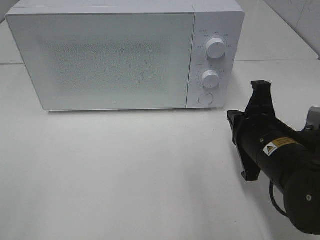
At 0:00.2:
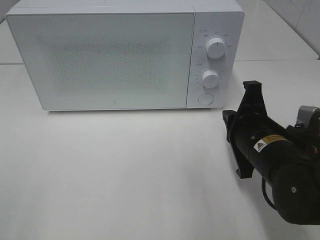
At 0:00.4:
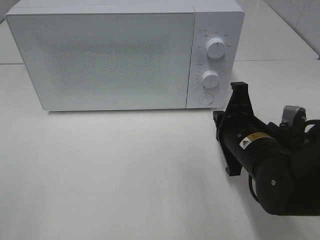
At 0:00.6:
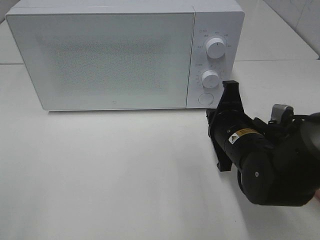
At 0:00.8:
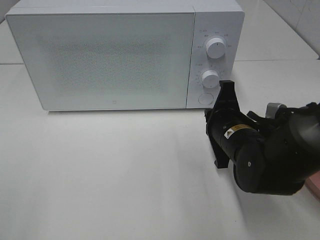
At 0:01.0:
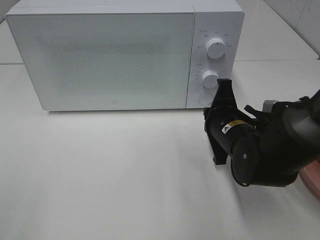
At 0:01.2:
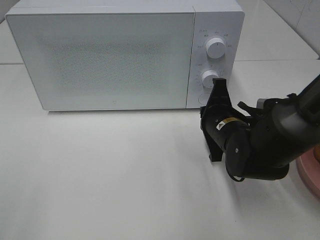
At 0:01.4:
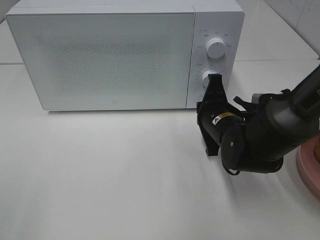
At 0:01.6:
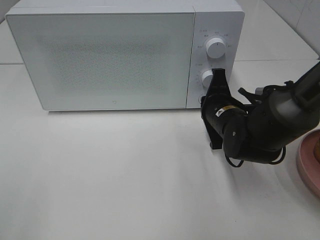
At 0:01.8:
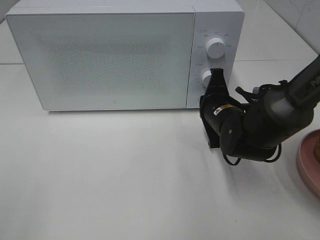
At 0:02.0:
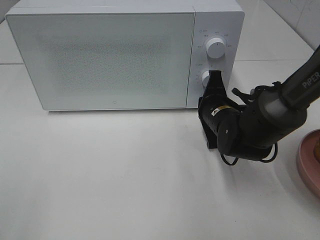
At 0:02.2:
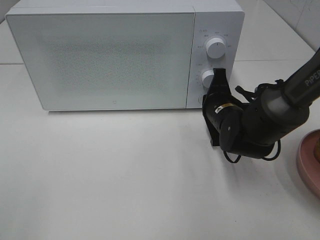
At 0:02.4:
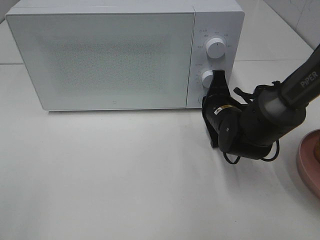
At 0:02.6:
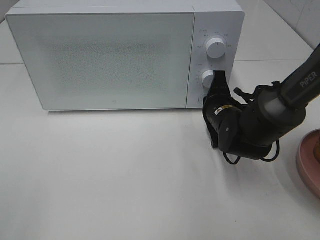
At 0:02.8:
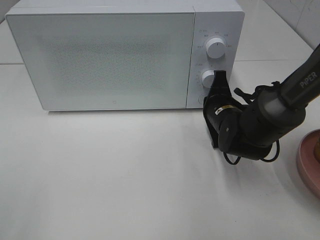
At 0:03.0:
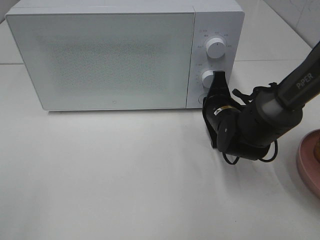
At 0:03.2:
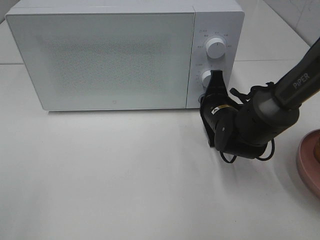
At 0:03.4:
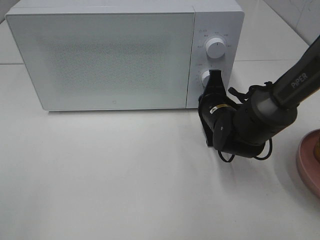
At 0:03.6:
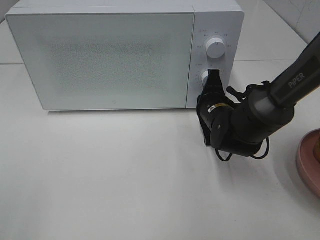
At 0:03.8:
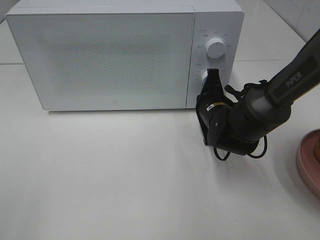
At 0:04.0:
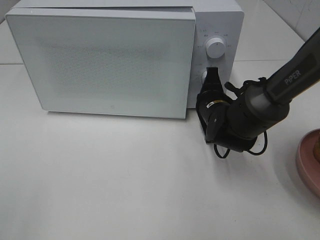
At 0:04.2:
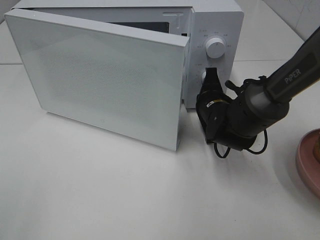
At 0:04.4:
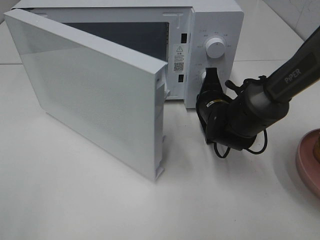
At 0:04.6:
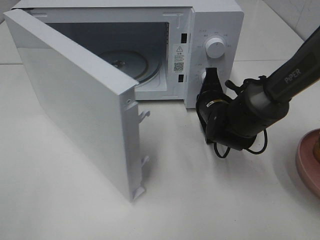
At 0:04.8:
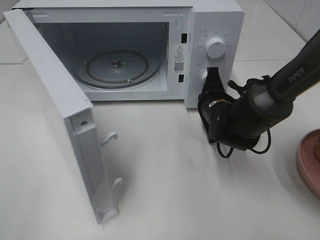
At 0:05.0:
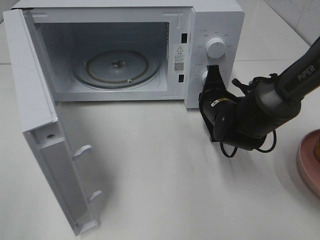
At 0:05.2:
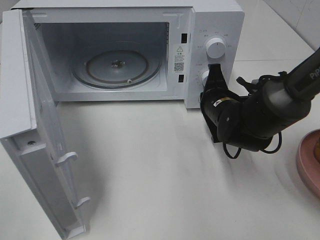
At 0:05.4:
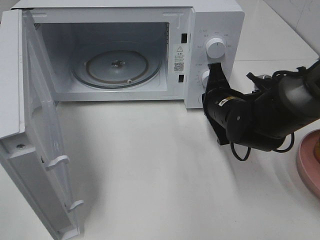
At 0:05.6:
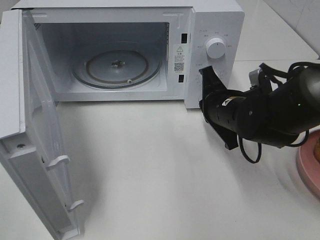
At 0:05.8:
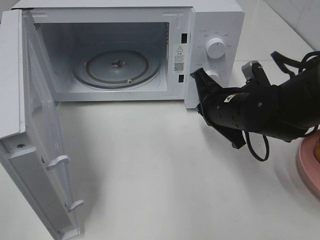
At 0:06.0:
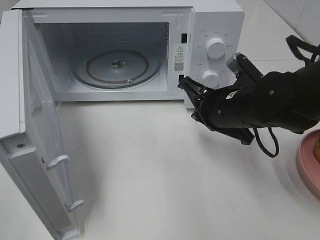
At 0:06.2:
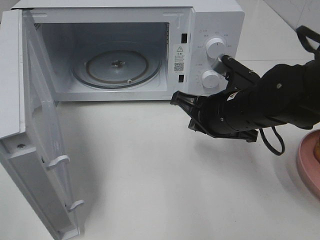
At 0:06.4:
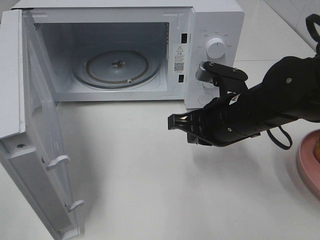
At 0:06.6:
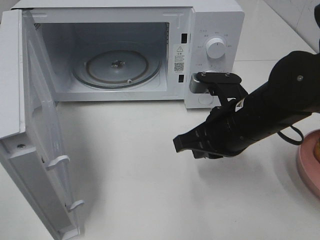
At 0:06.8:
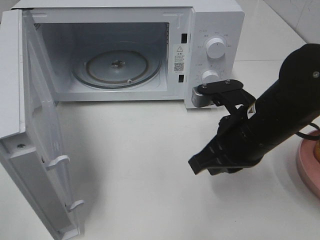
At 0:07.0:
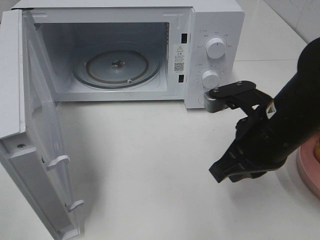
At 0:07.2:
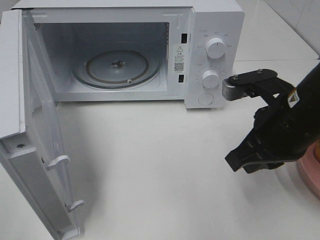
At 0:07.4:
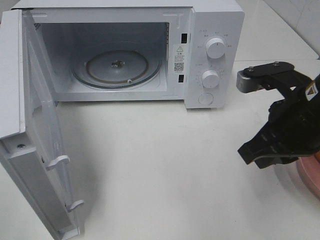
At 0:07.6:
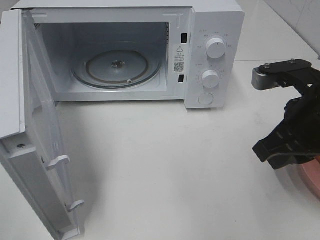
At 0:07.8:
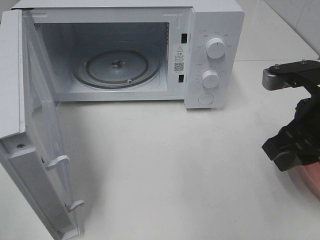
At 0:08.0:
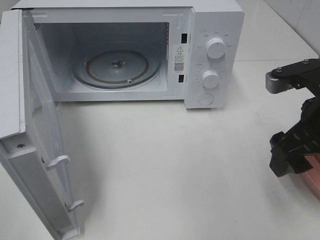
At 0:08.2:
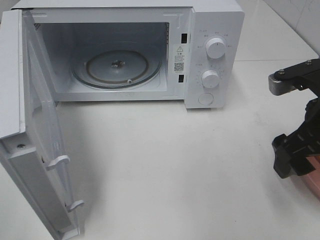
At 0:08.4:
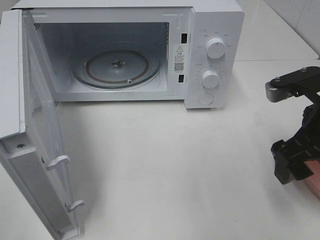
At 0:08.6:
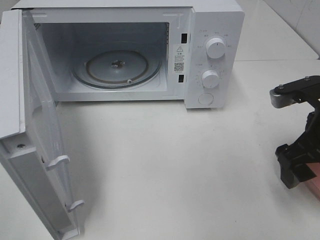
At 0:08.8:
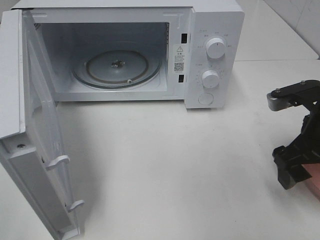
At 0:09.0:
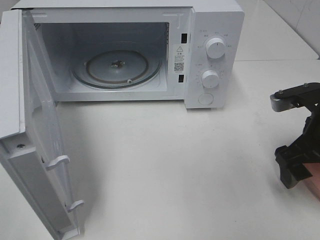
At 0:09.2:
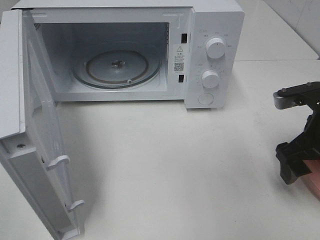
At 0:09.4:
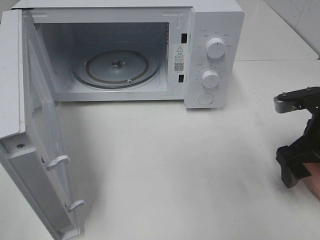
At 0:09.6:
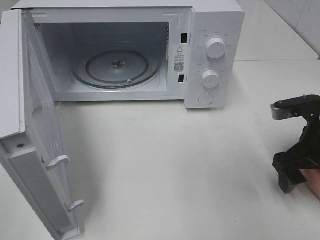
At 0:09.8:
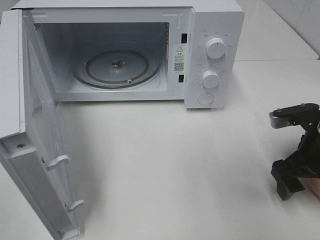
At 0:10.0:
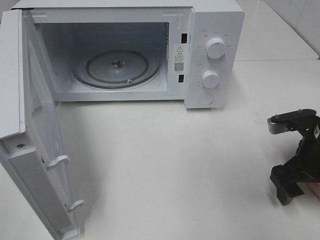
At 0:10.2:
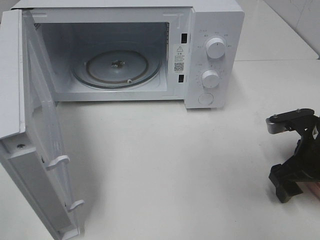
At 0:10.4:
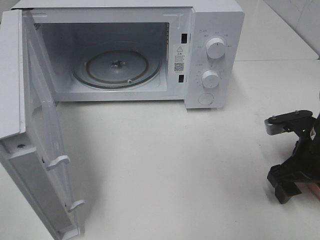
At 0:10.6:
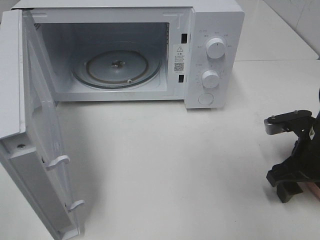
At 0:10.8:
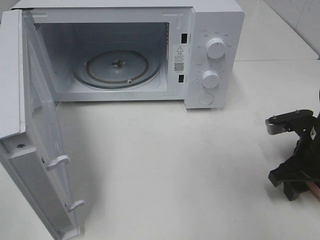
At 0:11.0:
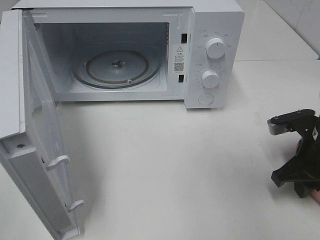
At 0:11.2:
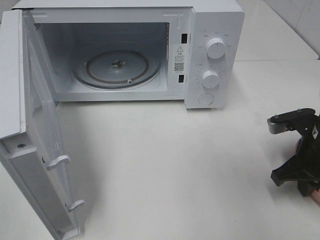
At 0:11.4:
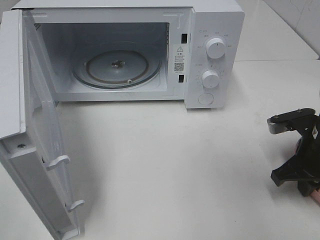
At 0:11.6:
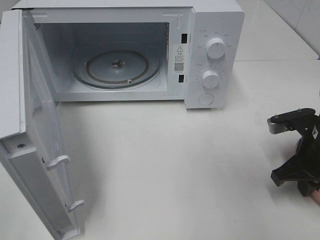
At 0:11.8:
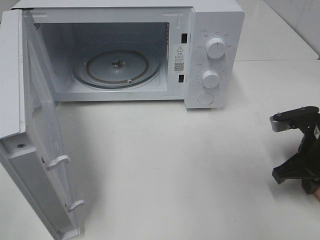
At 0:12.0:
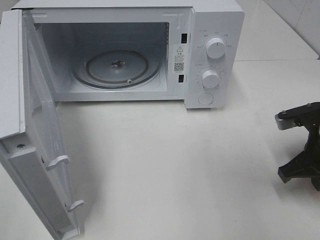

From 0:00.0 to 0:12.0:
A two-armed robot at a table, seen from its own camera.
Task of the whole recording: Heat the burger.
Step, from 0:00.0 to 0:05.2: Right hand: press the switch.
Step, from 0:05.4 to 0:11.2: Right hand: grab the plate with the hamburger.
From 0:00.0 to 0:01.6: The right gripper shifts about 10 cm forward.
From 0:01.6 to 0:03.0: The grippers make only small movements.
From 0:04.4 to 0:06.0: The right gripper shifts about 10 cm backward and upward.
From 0:06.0 to 0:07.6: The right gripper goes some 15 cm backward, upward and to the right.
From 0:07.6 to 0:09.0: The right gripper shifts by about 5 cm, and opens its fingers.
From 0:09.0 to 0:10.4: The right gripper travels downward by about 5 cm.
From 0:10.4 to 0:12.0: The right gripper closes up.

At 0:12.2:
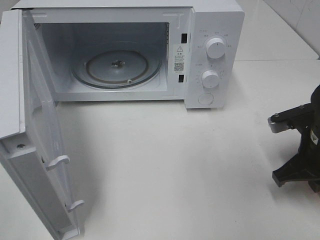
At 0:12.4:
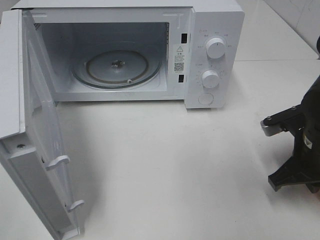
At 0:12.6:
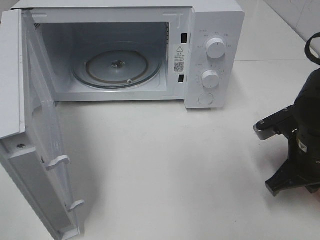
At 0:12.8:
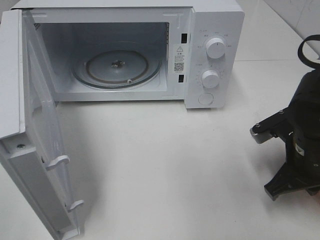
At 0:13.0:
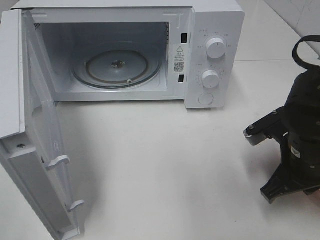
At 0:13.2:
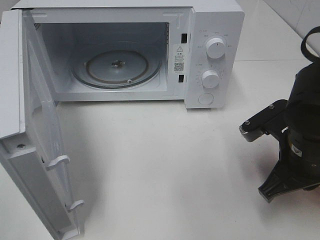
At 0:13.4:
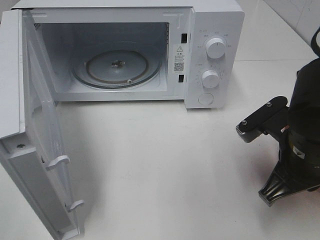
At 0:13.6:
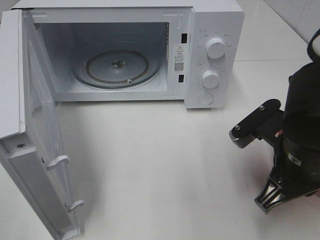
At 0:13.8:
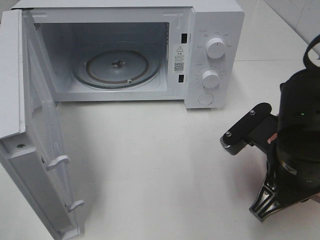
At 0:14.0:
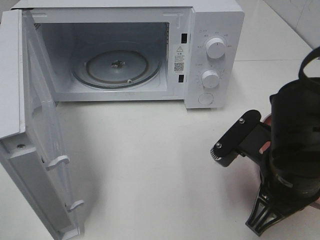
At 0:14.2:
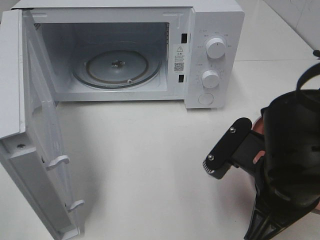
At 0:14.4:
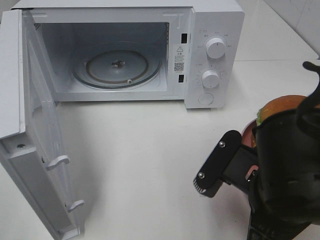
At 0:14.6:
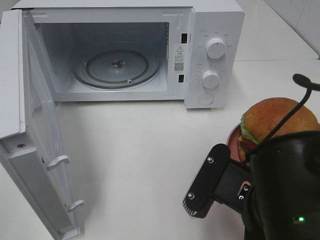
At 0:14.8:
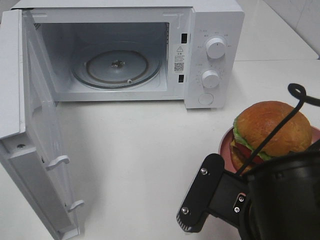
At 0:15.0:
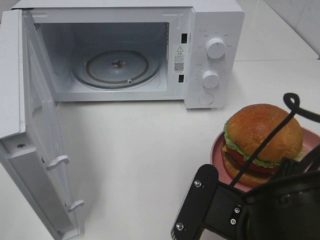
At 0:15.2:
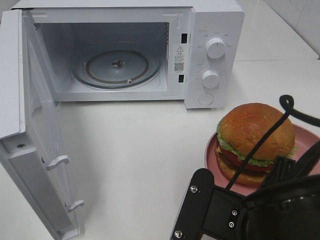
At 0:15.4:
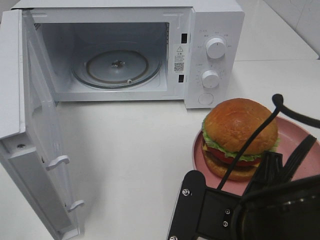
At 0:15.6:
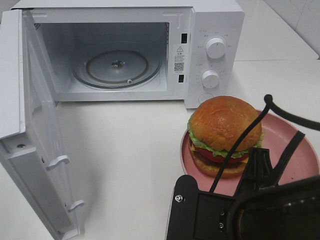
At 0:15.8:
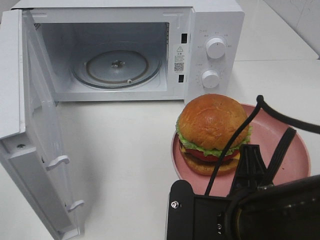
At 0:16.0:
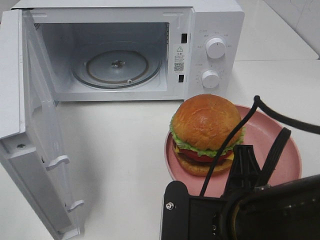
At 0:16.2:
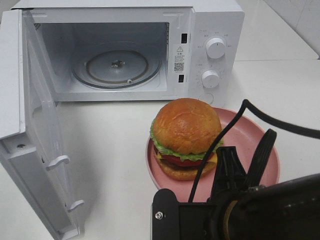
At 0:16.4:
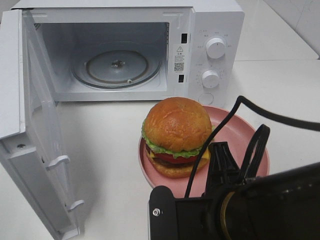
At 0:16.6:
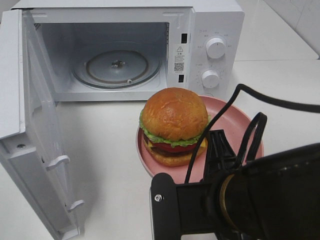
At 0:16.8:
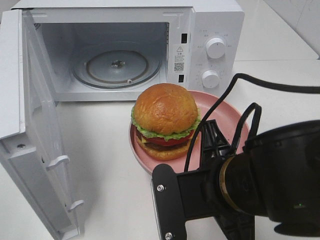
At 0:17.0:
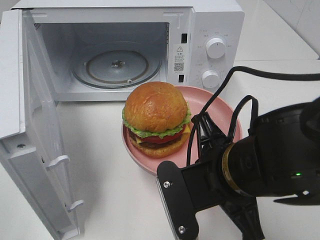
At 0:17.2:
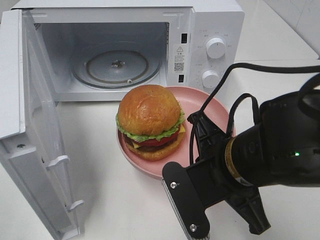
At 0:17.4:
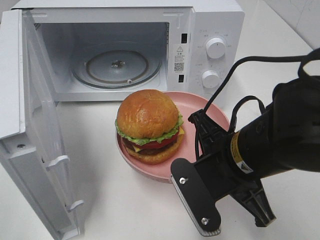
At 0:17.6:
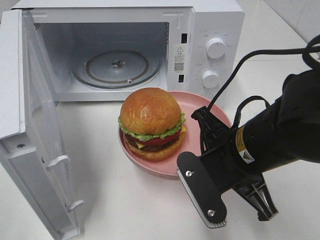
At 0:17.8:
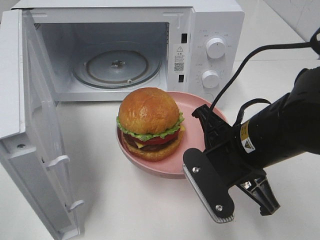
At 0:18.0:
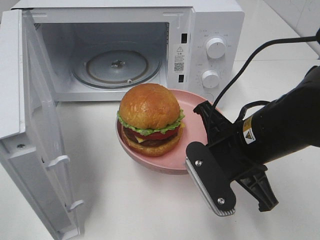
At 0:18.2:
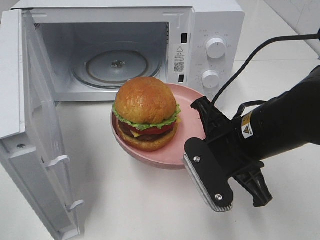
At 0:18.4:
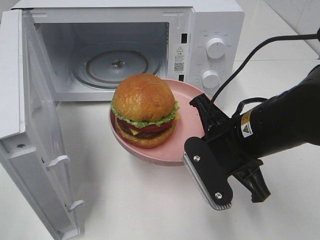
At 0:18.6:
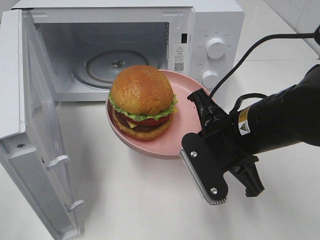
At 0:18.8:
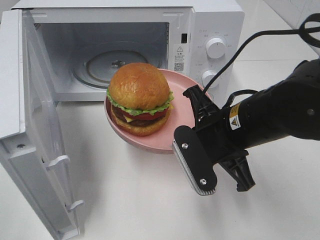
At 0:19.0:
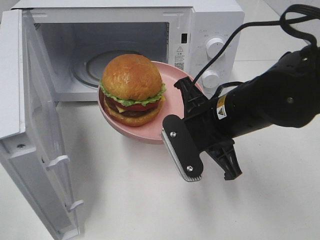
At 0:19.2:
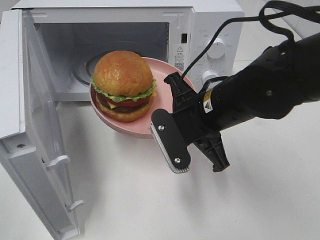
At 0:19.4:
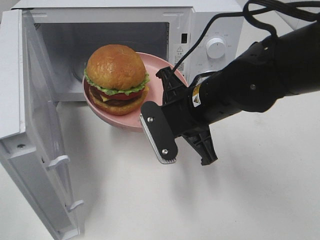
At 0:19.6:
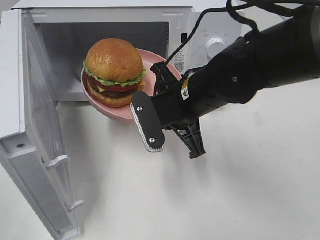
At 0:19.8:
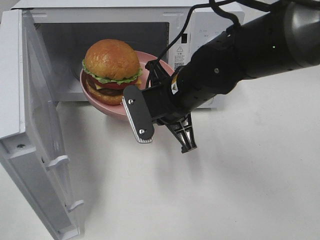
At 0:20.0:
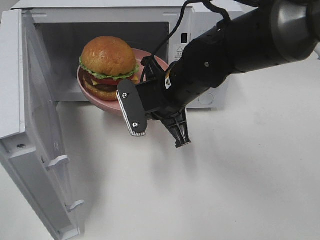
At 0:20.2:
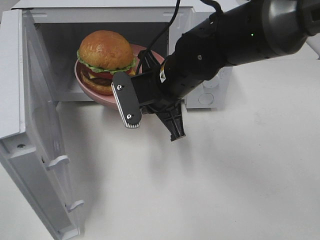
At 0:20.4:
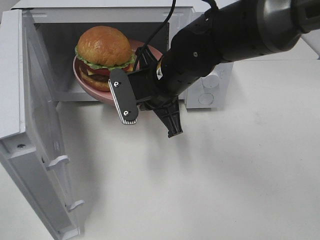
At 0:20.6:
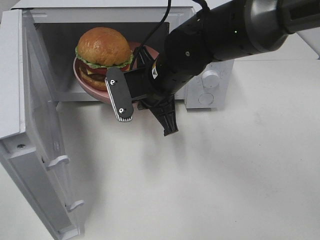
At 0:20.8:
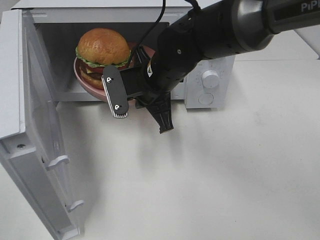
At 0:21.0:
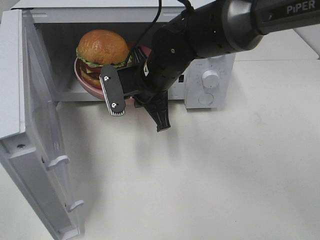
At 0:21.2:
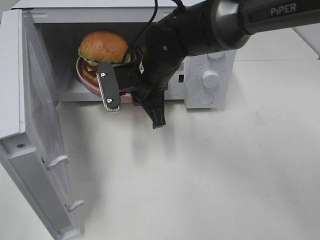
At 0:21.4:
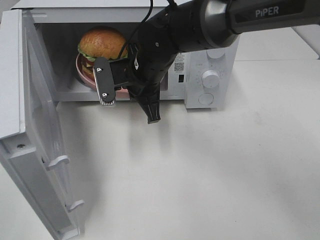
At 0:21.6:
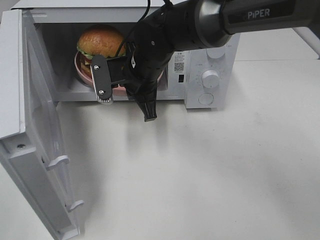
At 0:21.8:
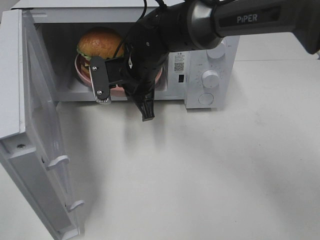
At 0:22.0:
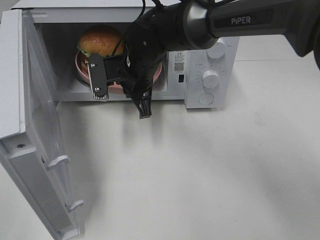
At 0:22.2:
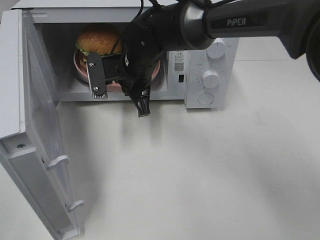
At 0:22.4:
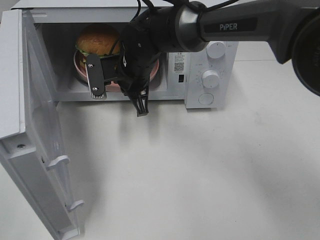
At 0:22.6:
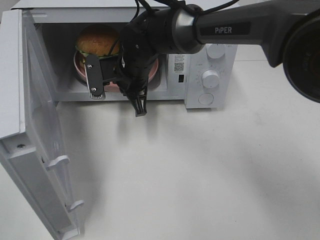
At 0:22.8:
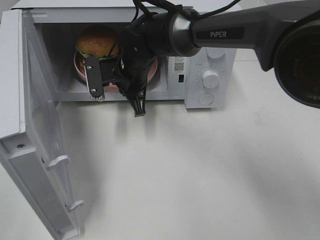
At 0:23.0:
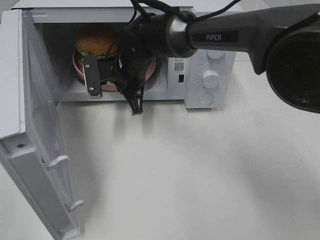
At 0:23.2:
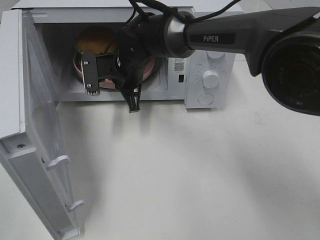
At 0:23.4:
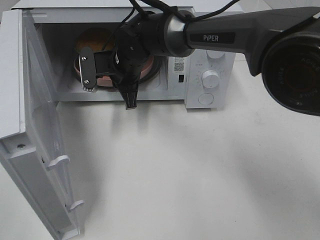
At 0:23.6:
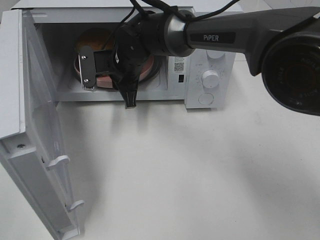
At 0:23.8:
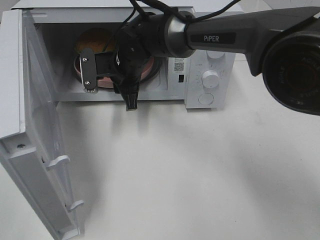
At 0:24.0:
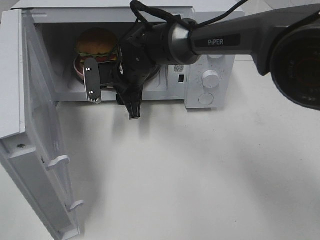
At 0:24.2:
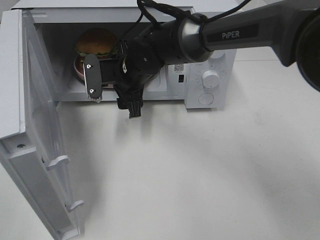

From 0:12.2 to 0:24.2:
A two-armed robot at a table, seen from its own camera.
Task of the whole recording: Heat the burger.
Step, from 0:12.2 to 0:23.6: Right hand: place the plate in the microwave.
From 0:12.2 to 0:13.8: The right gripper shifts some 10 cm to the left and backward.
From 0:13.8 to 0:15.2: The right gripper moves backward and to the left, roughly 10 cm.
From 0:16.6 to 0:18.2: The right gripper goes some 10 cm forward.
From 0:18.2 to 0:19.8: The right gripper heads forward and to the left, covering some 10 cm.
From 0:19.8 to 0:21.2: The right gripper travels forward by about 5 cm.
From 0:21.2 to 0:22.6: The right gripper moves roughly 5 cm.
From 0:22.6 to 0:24.2: The right gripper opens.
